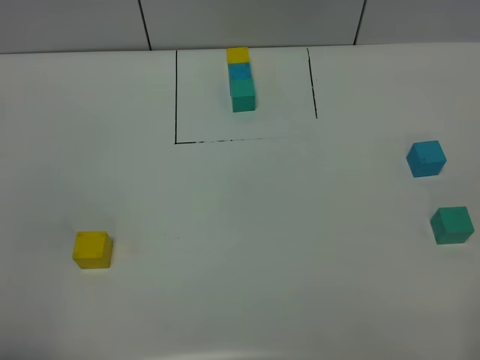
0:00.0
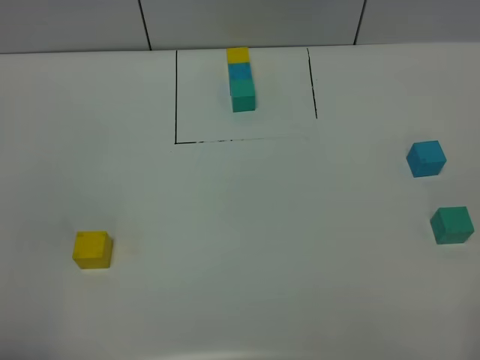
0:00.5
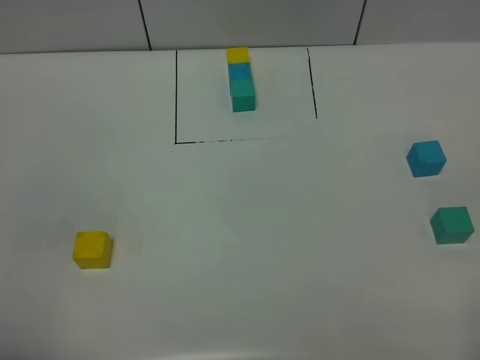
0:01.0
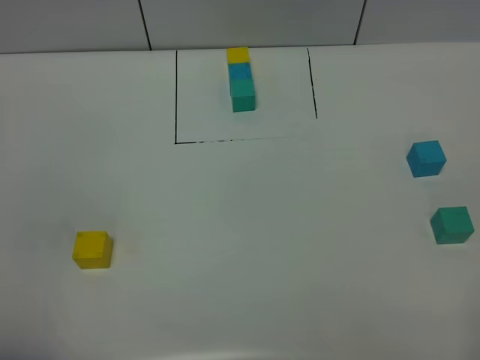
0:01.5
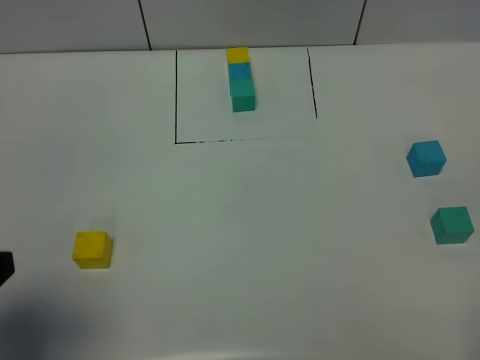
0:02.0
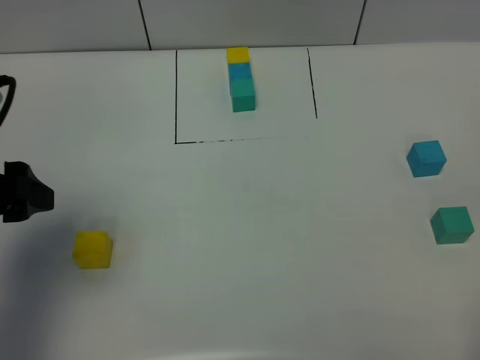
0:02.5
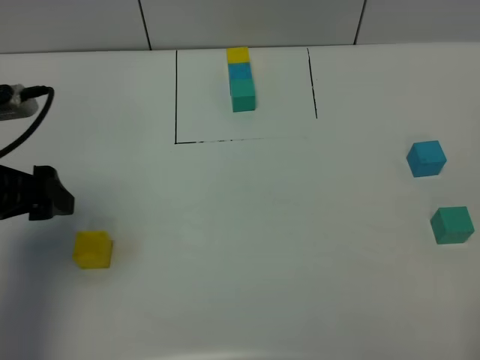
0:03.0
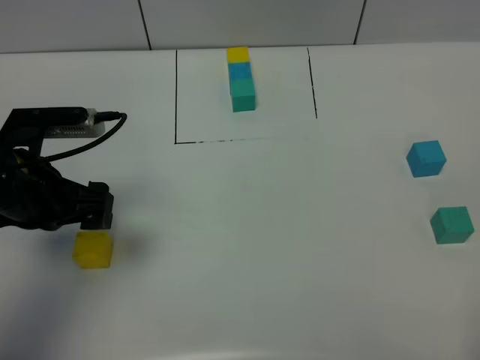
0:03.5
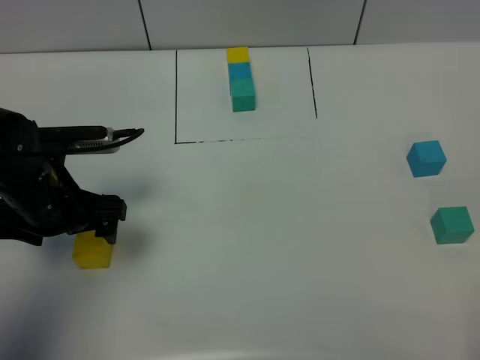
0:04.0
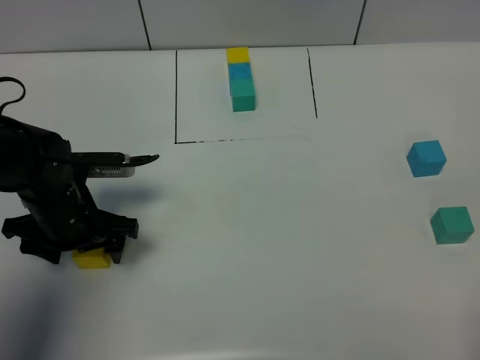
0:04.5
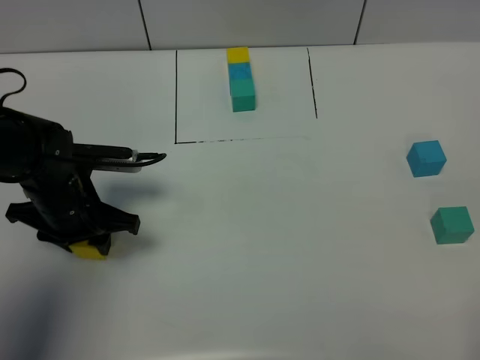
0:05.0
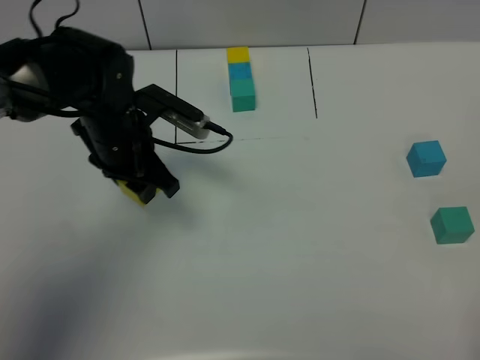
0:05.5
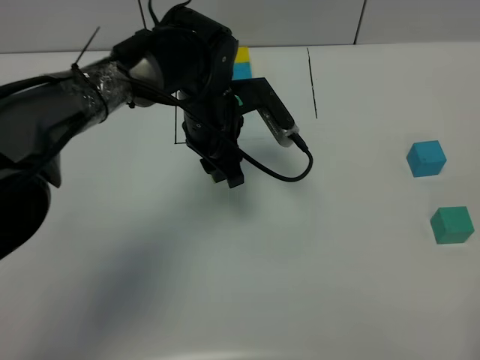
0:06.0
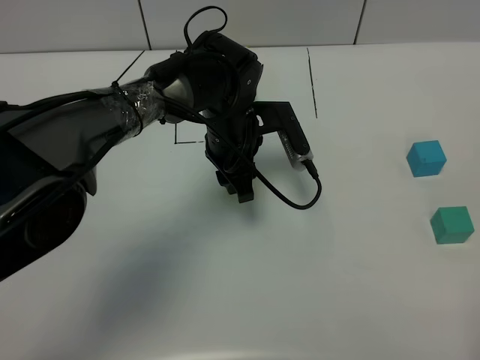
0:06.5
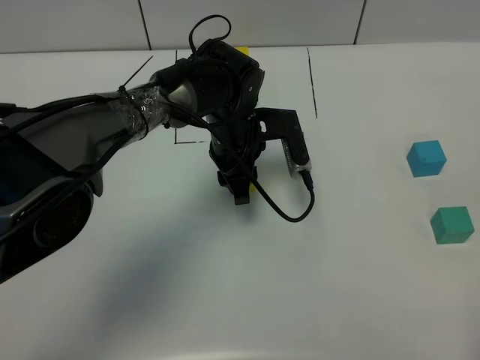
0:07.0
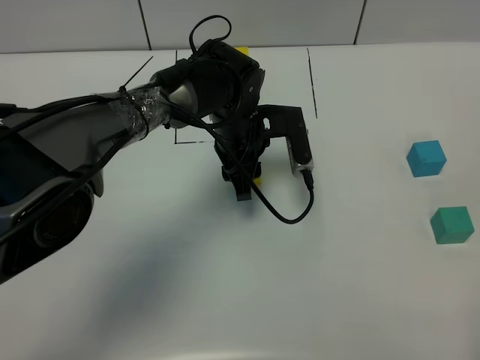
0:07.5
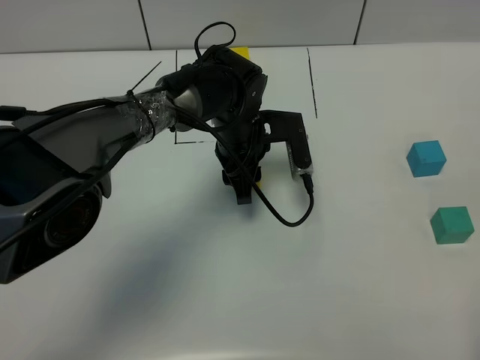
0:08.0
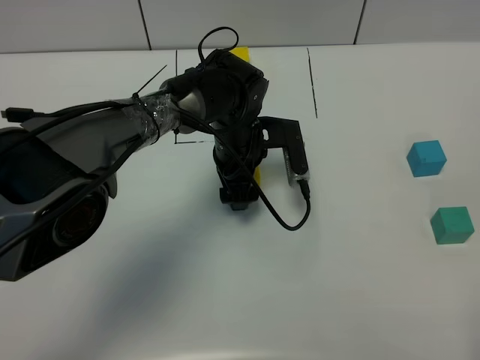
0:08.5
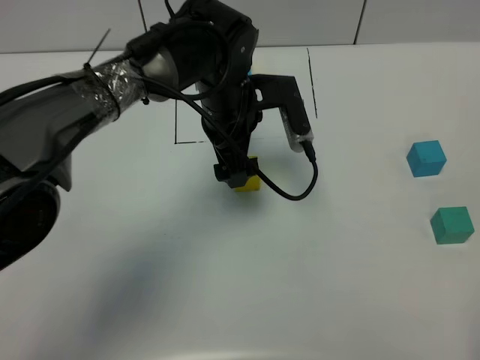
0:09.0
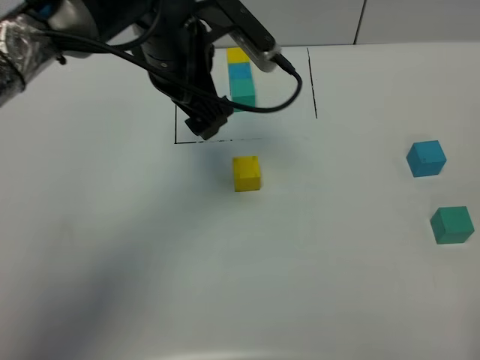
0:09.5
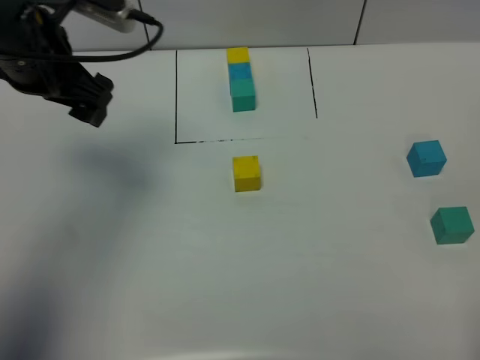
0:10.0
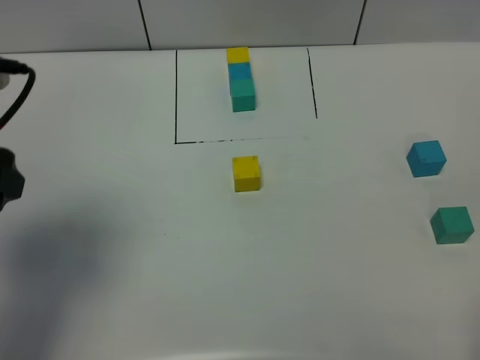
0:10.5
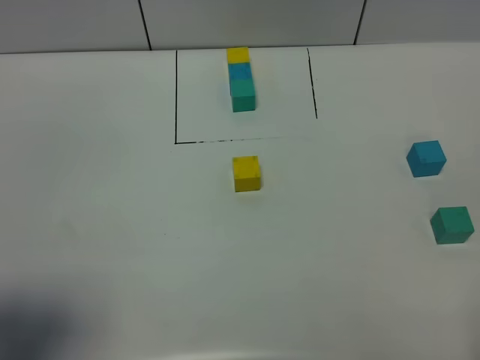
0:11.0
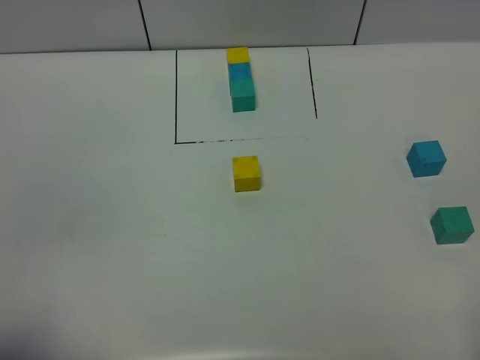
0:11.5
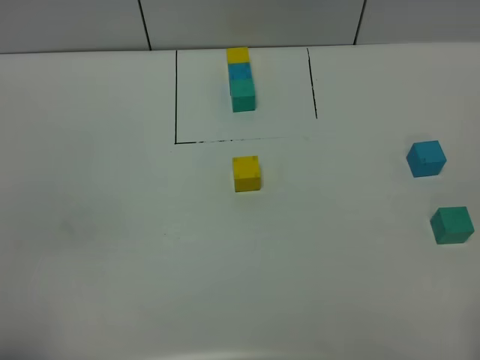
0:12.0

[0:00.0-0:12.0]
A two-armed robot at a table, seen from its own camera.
Task of the whole recording: According to the building block template in front, assemble the scattered blocks together.
Step, 0:00.0 to 0:08.5: Put the yellow build block in the center of the table.
0:00.0 to 0:02.0: The left gripper travels forward by some 10 cm, and opens.
0:02.0 to 0:04.0: The left gripper shifts approximately 20 cm forward and downward.
0:04.0 to 0:06.0: The left gripper travels to the right and forward by about 20 cm, and closes.
0:06.0 to 0:08.0: The left gripper goes some 5 cm downward.
0:08.0 to 0:10.0: The left gripper shifts about 30 cm to the left and upward, and opens up.
0:10.0 to 0:12.0: The left gripper is displaced backward by some 35 cm.

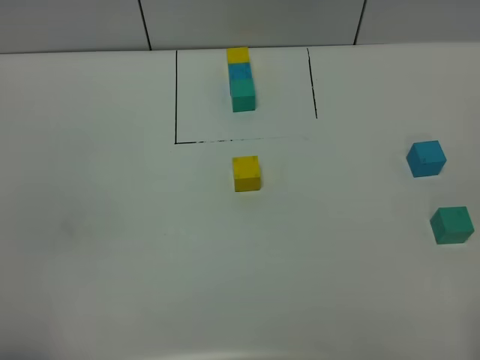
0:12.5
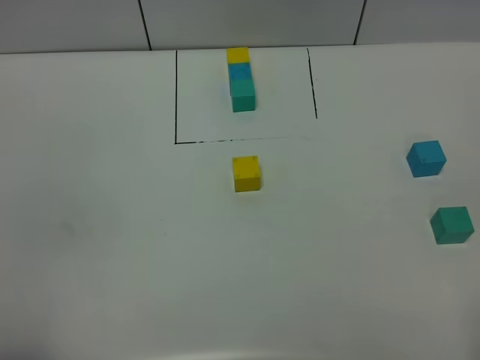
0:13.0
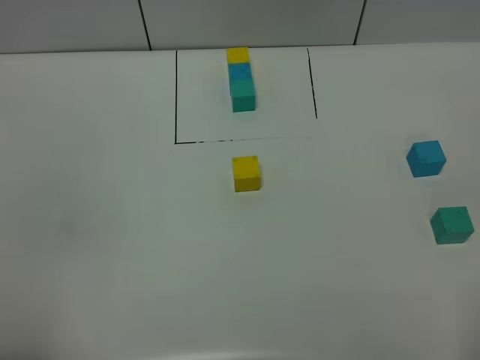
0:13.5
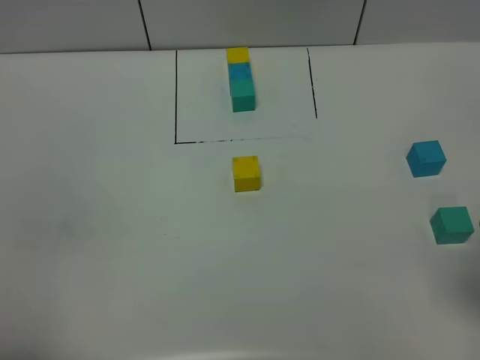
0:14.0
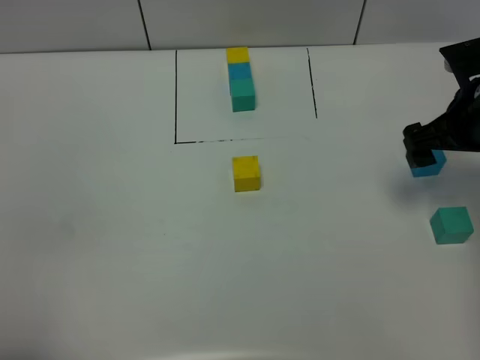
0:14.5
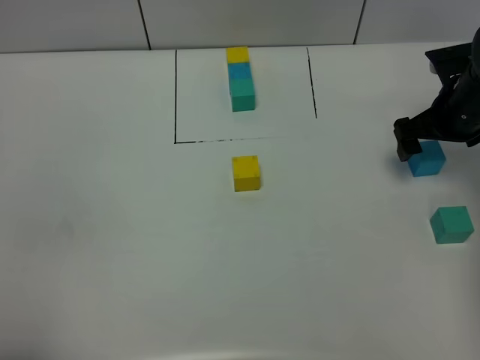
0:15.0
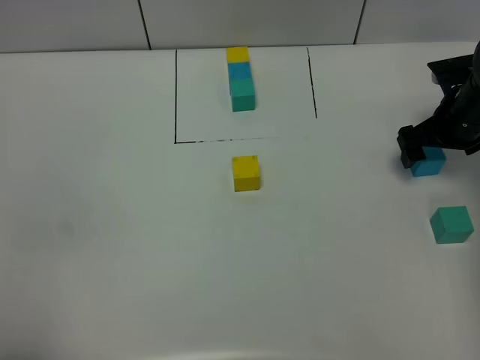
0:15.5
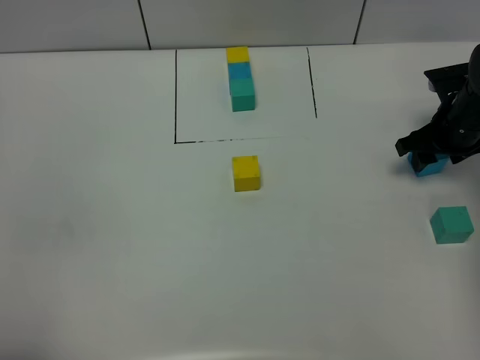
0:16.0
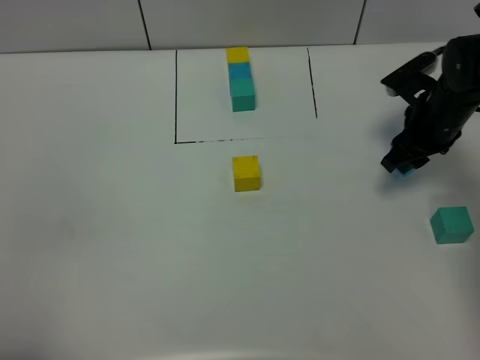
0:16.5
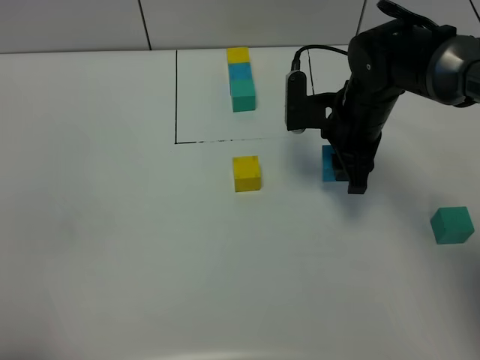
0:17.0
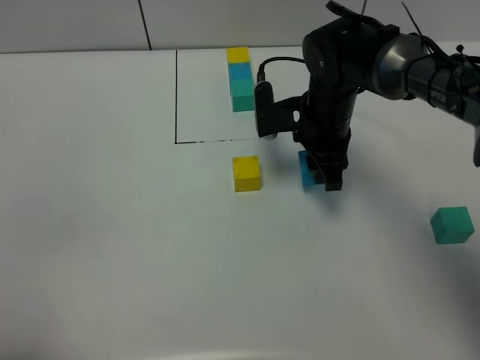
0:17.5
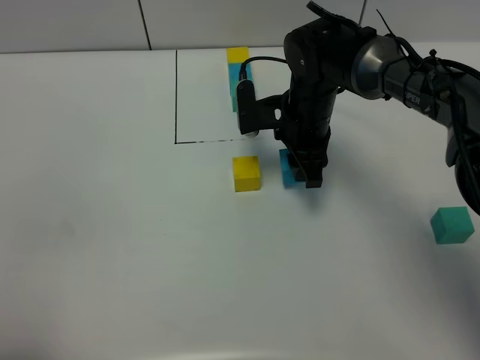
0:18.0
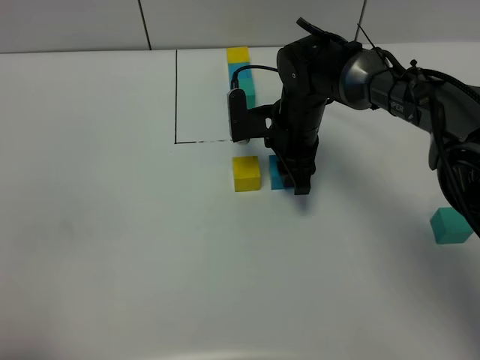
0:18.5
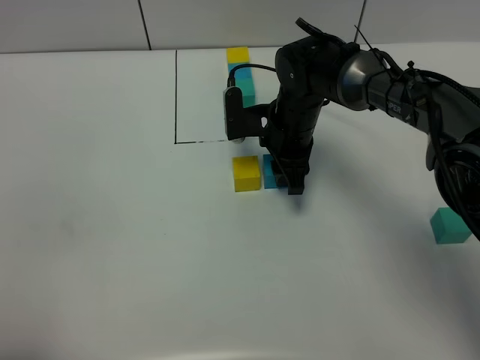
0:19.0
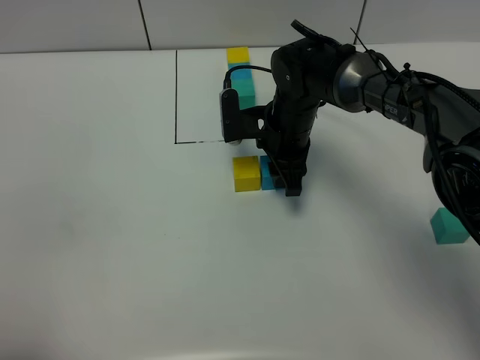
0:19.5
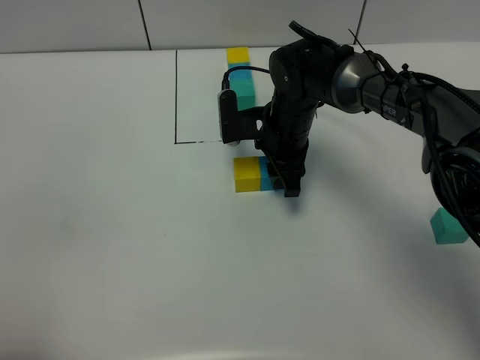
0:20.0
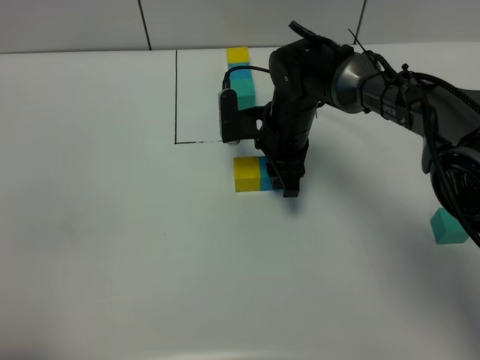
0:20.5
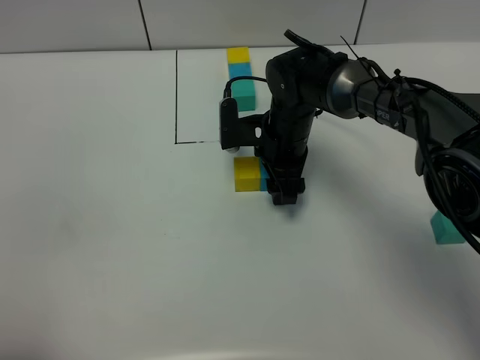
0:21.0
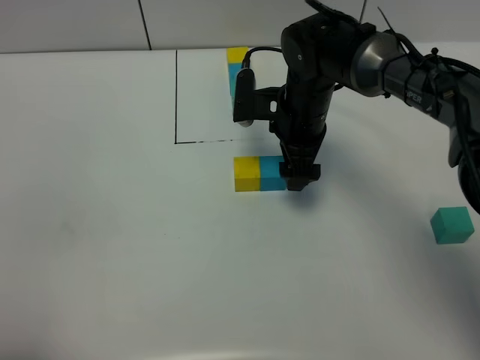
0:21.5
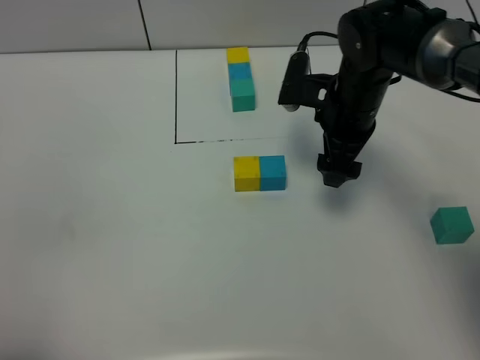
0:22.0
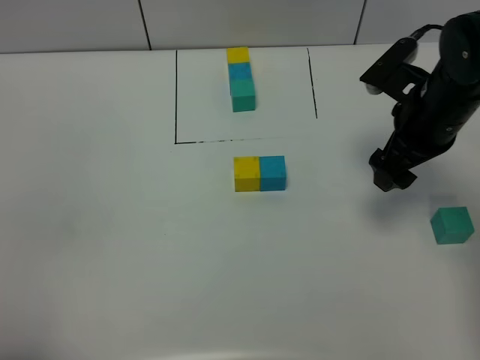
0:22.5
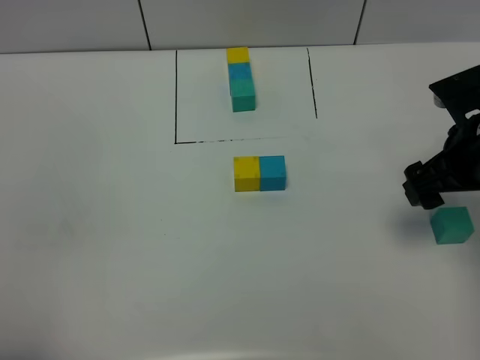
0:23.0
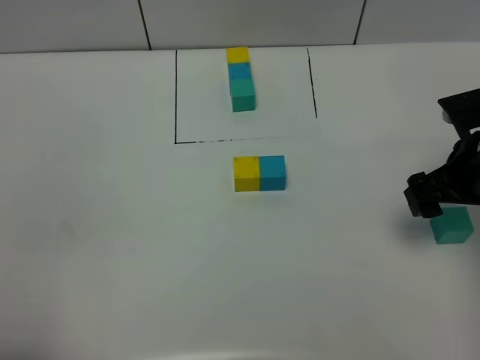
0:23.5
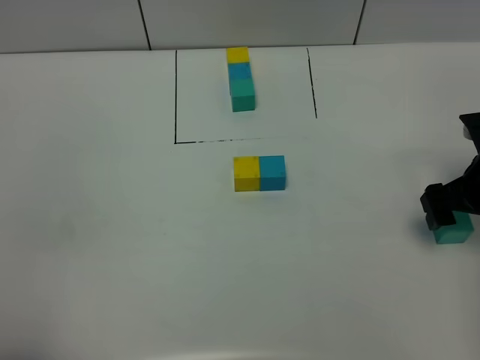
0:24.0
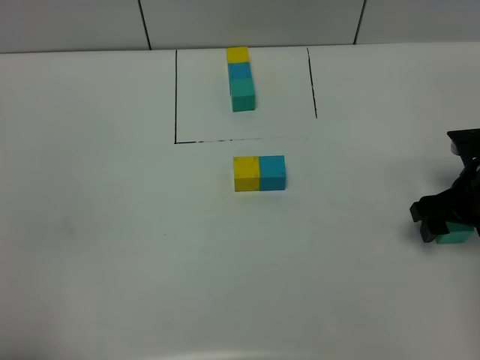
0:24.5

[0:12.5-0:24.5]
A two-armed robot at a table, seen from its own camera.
Task of the whole recording: According to the building block template in front, assemble the scattered blocks together.
Step, 0:12.5 to 0:21.0: Put the bluebuild block on the right of the yellow build block.
0:12.5 to 0:14.5: The right gripper heads forward, covering some 35 cm.
0:14.5 to 0:16.5: The right gripper moves downward and forward, approximately 10 cm, and closes.
0:16.5 to 0:18.5: The right gripper goes approximately 20 cm to the left.
0:18.5 to 0:20.5: Both grippers stay about where they are.
0:20.5 to 0:22.5: The right gripper heads to the right, upward and backward, covering about 20 cm, and opens up.
0:22.5 to 0:24.5: The right gripper goes roughly 10 cm downward and to the right.

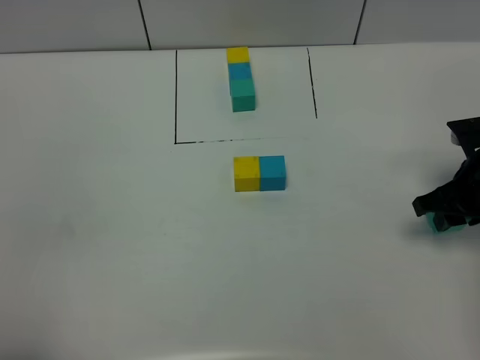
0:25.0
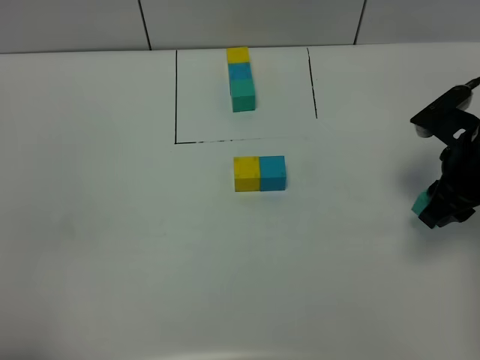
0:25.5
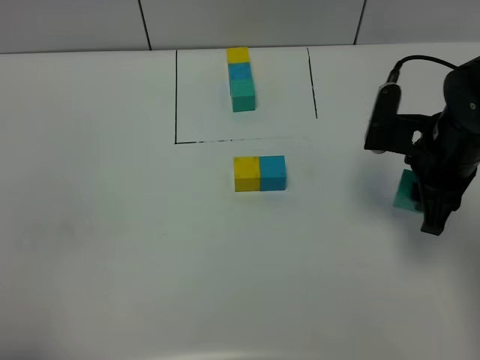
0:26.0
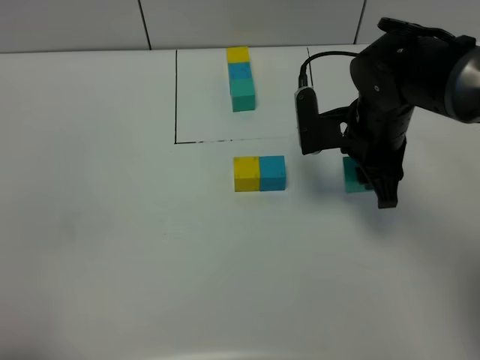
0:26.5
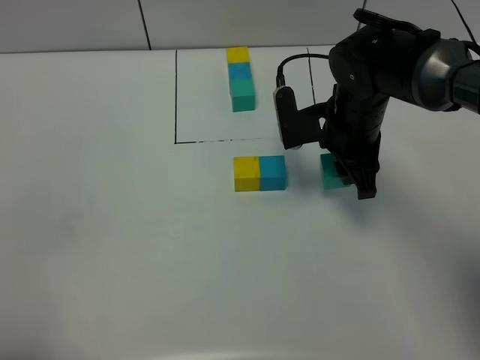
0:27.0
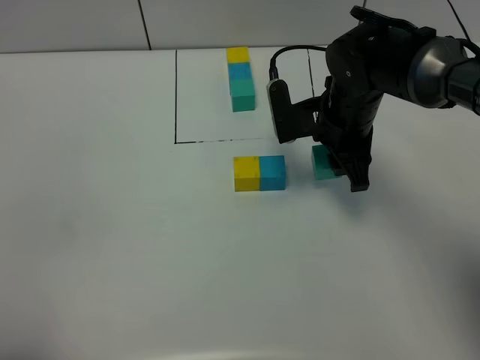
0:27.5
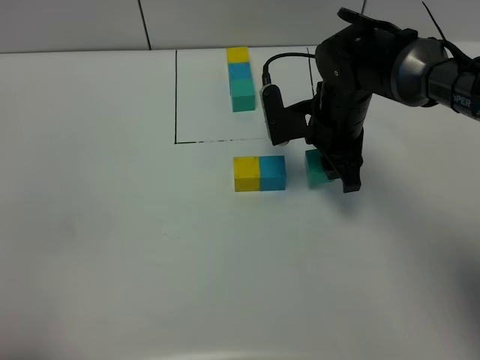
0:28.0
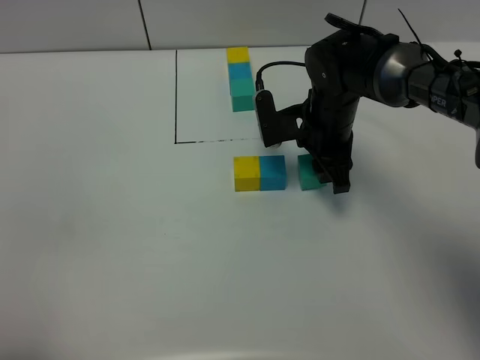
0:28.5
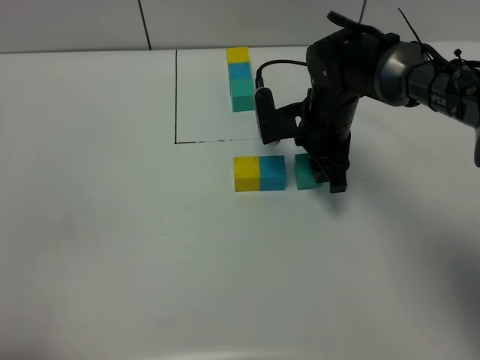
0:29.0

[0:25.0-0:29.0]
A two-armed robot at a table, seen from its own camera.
Task of the whole recording: According to the building block template in front, assemble the scattered blocks together.
0:25.0 to 0:27.0: The right gripper moves to the left and forward, approximately 15 cm.
0:27.0 to 0:29.0: The right gripper changes place by approximately 5 cm.
